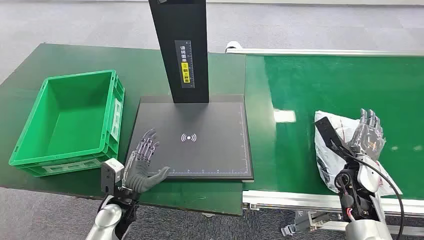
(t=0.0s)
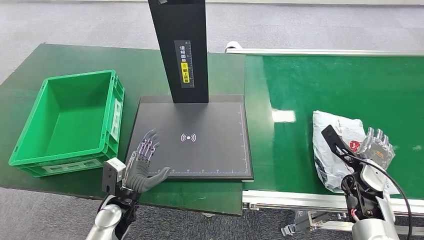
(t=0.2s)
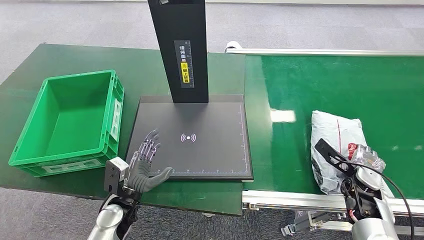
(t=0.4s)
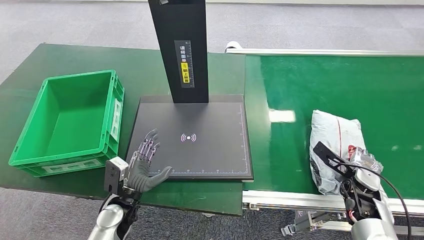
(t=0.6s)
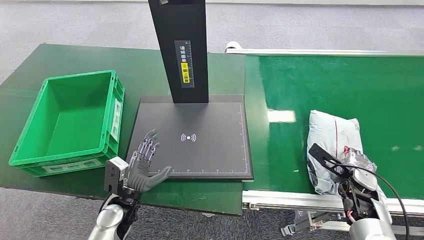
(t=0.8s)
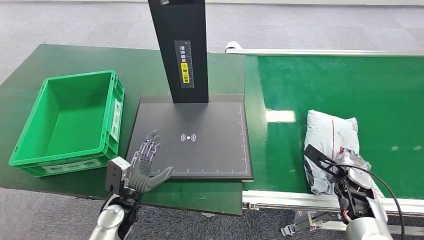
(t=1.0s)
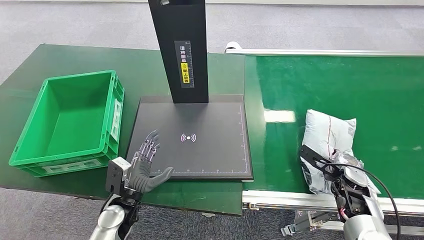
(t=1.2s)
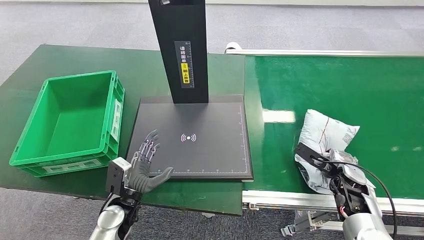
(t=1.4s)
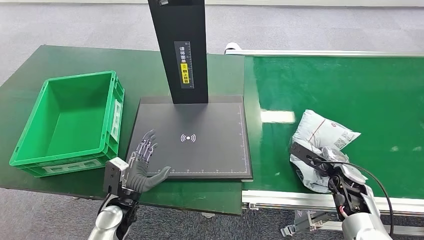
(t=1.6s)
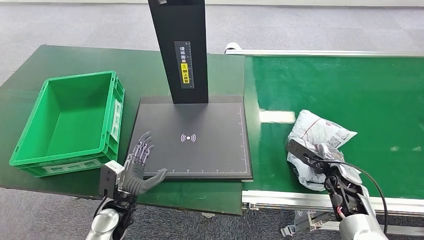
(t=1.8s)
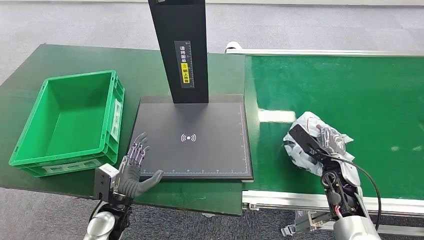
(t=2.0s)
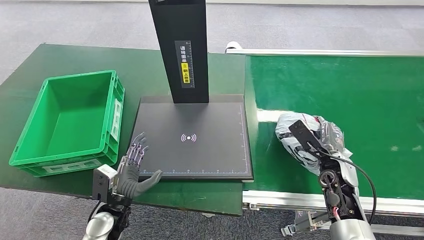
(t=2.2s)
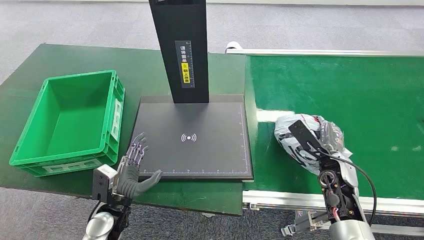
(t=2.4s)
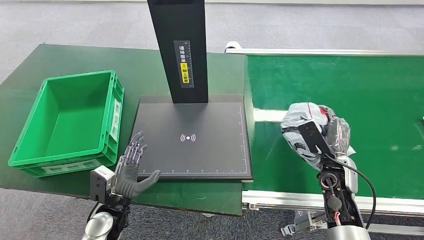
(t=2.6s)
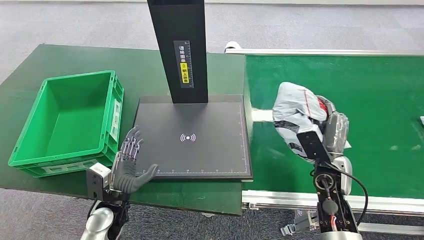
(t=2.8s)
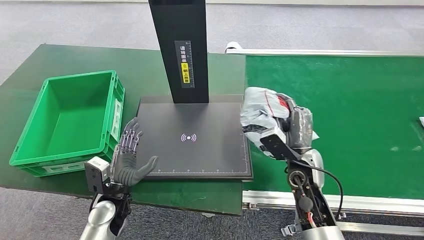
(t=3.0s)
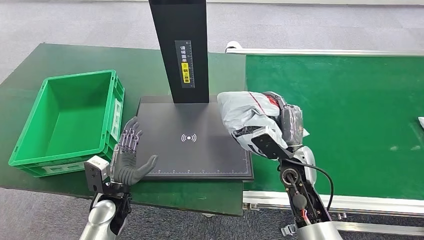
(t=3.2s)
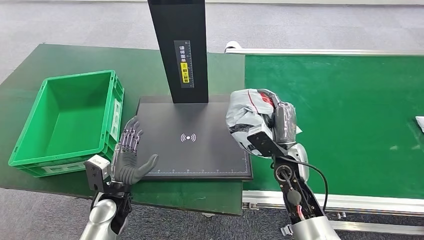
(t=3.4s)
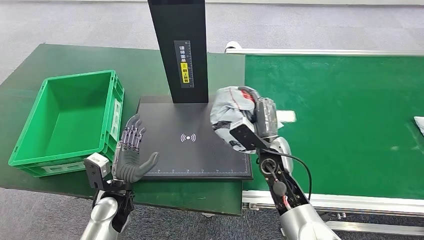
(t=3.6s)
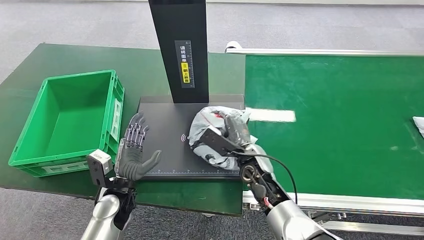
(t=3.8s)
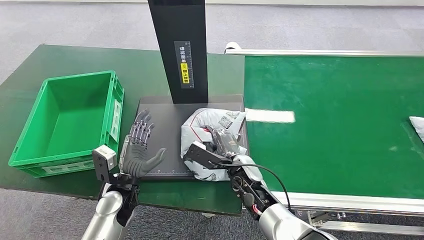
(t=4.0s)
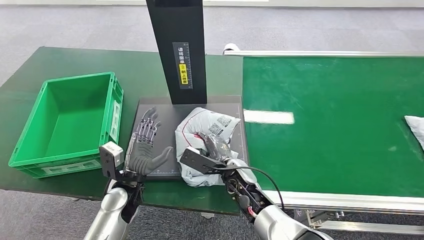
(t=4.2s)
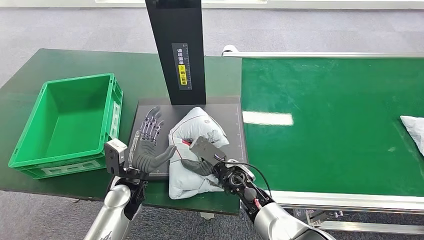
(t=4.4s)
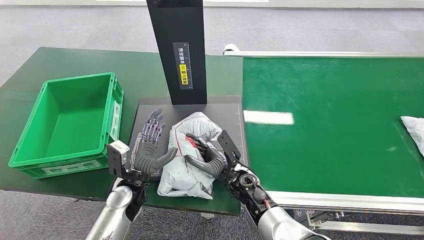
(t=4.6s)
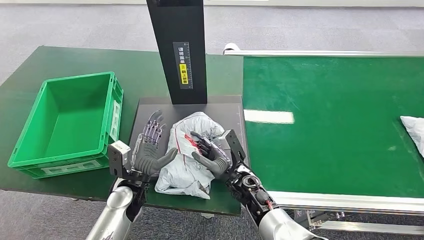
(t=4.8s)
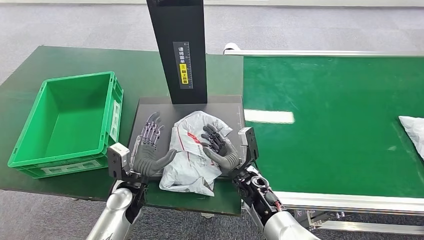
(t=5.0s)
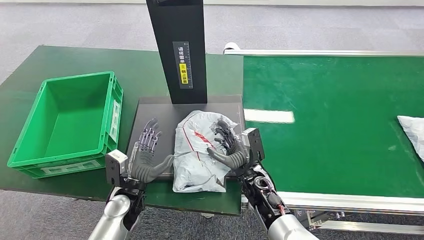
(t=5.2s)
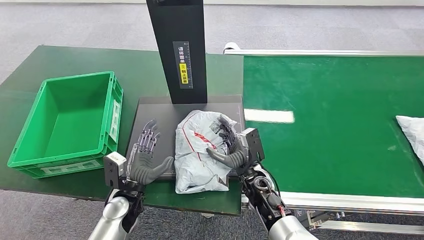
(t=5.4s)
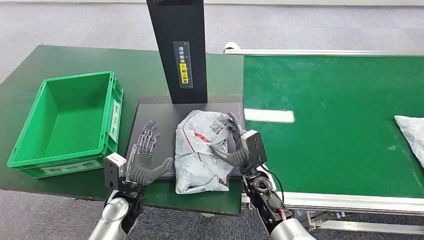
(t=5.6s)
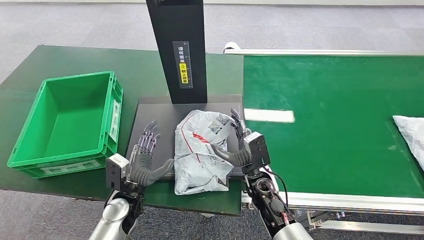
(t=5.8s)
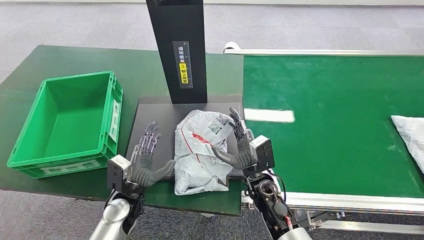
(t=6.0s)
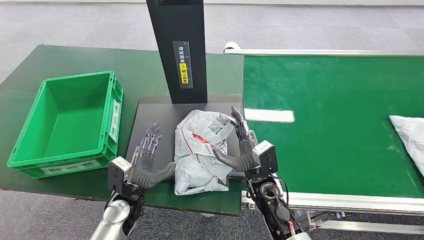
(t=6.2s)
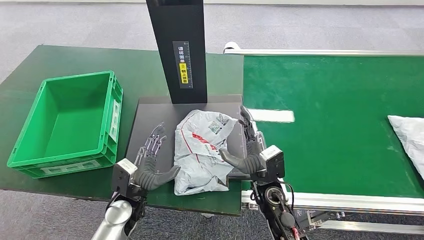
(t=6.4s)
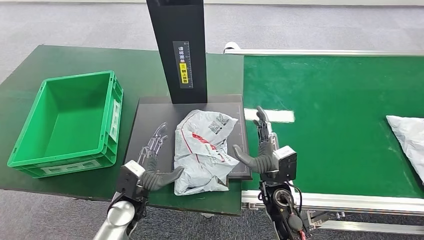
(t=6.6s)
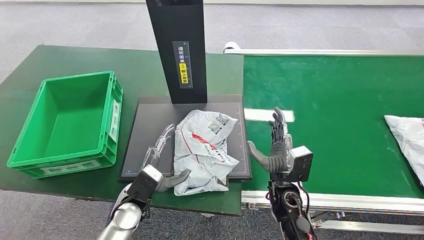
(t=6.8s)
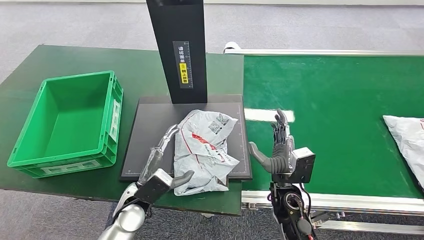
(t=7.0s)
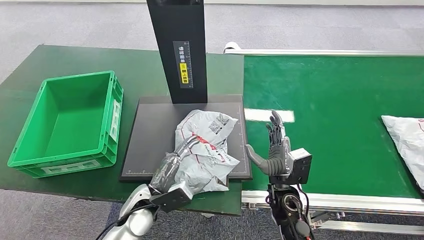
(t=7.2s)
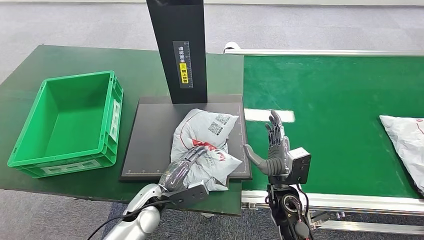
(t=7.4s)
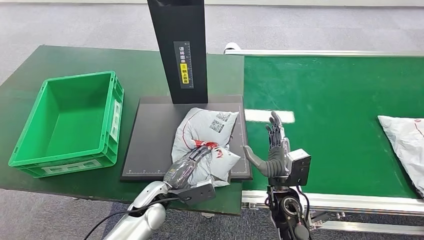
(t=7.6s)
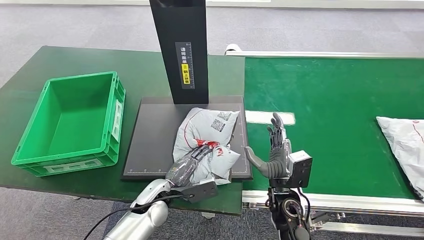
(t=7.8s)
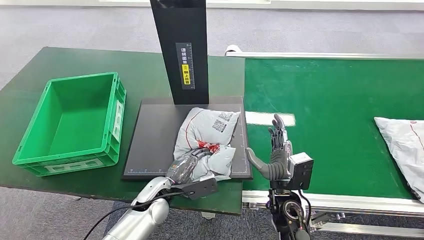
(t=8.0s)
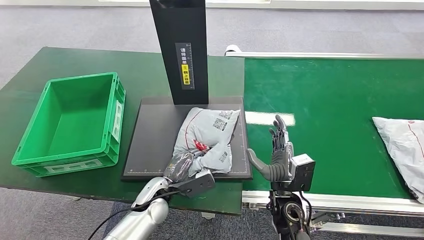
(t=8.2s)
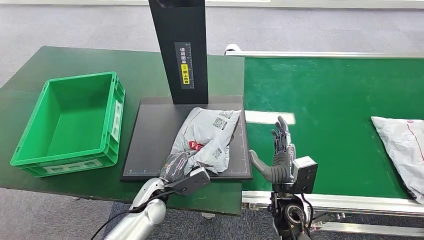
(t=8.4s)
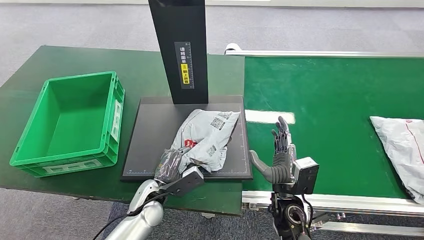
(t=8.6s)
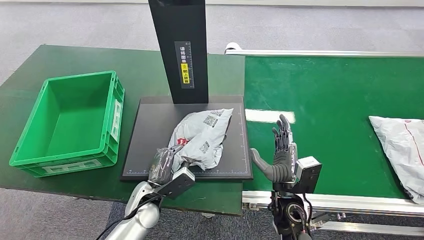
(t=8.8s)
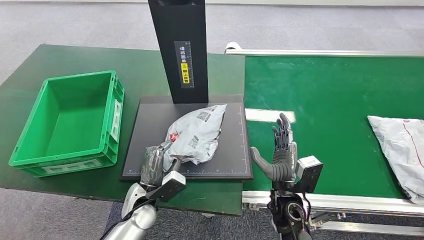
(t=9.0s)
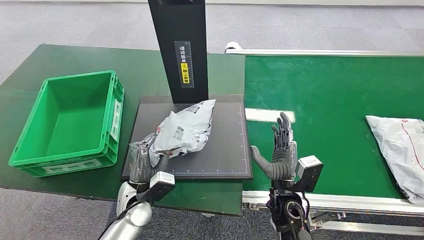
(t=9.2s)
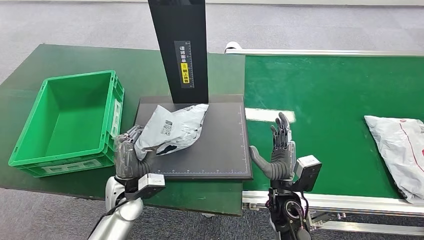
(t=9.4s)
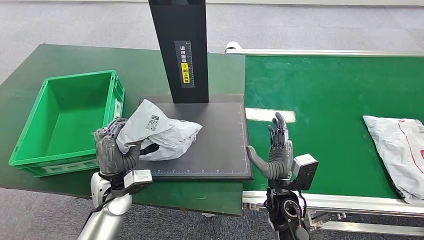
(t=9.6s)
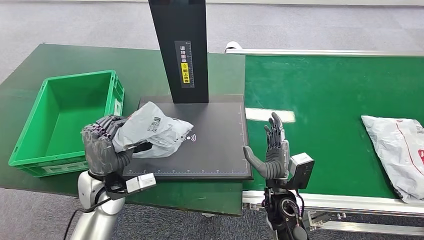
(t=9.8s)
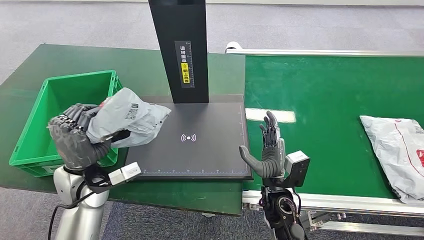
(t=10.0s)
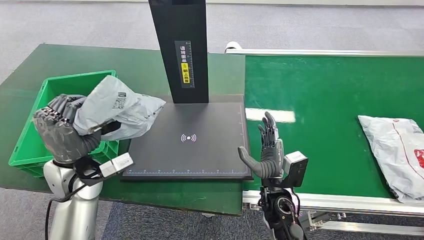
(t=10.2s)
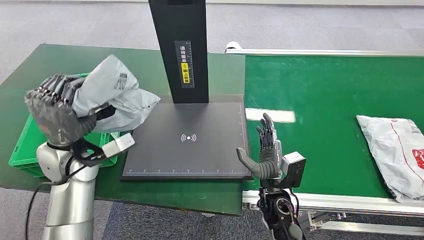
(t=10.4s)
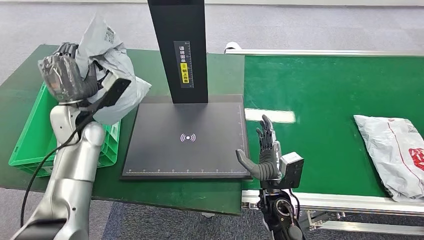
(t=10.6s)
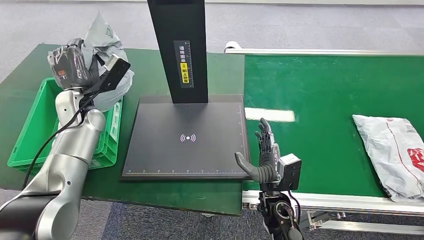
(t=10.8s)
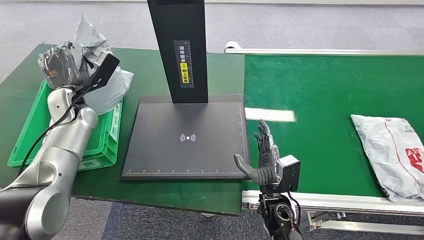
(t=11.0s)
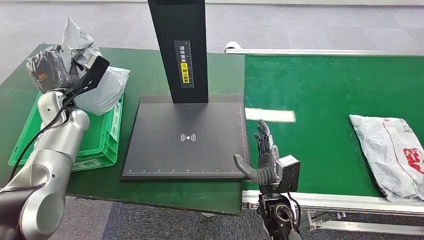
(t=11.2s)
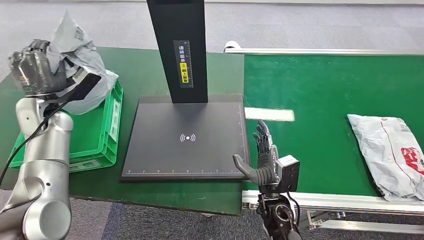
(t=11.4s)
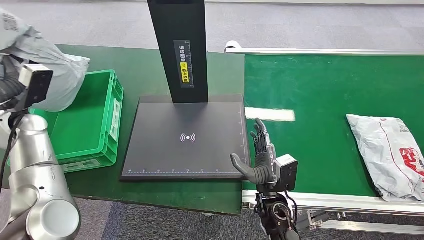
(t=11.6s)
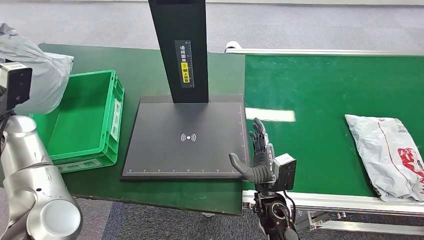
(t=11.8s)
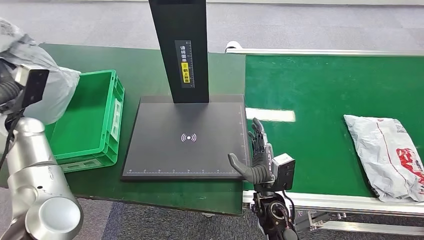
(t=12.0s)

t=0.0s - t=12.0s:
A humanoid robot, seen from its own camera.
Step, t=0.0s - t=3.2s: Pick up the package from the conveyor belt.
Step, t=3.4s - t=4.8s: Place the package onto the inbound machine.
Step, t=5.2s - t=9.8s: Pick up the package from the inbound machine.
t=1.6s - t=3.0s: The right hand heads to the left and upward, covering roughly 15 cm.
t=6.0s - t=7.6s: The left hand heads to the right, covering about 5 cm, while the right hand shifts by approximately 5 cm.

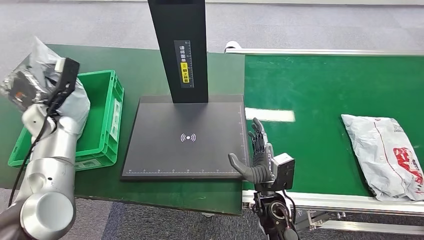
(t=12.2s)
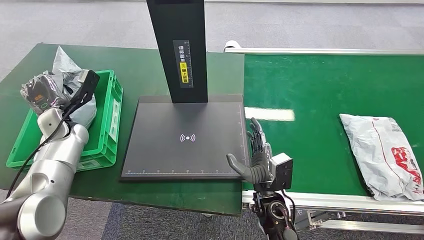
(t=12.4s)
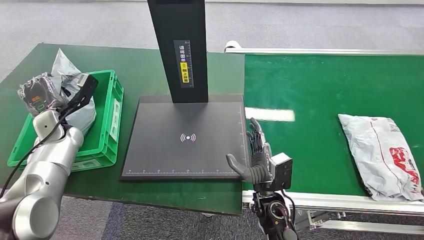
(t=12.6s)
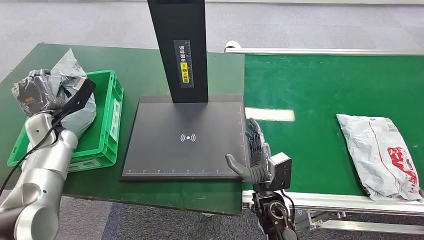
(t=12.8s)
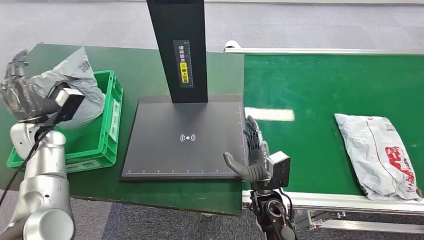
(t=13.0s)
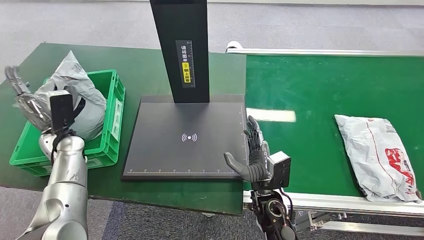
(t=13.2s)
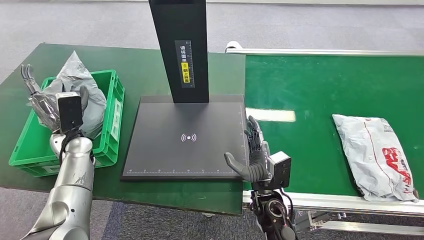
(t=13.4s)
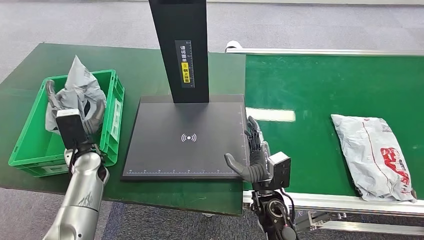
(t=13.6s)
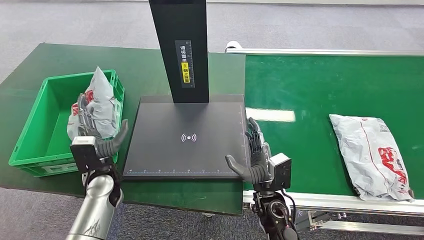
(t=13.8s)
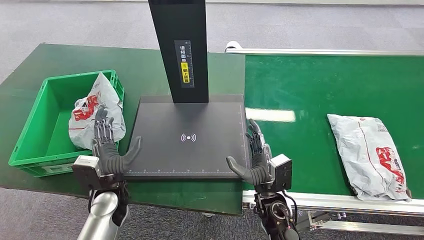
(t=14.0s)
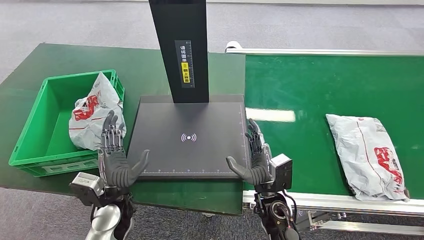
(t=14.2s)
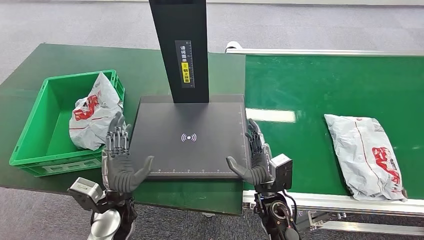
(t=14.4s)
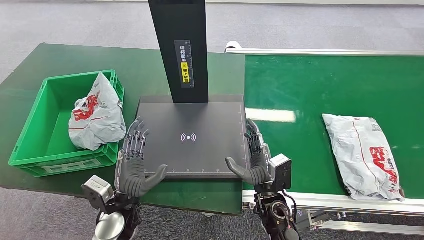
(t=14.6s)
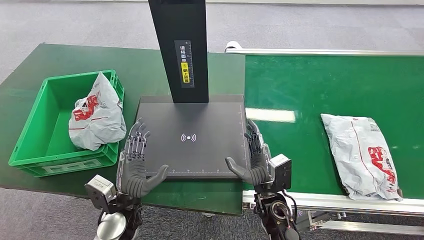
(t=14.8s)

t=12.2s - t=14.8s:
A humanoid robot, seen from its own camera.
Step, t=12.2s - t=14.8s: Place the package into the parcel locker.
t=13.4s - t=14.8s: The left hand shifts roughly 25 cm backward, to the right and downward.
